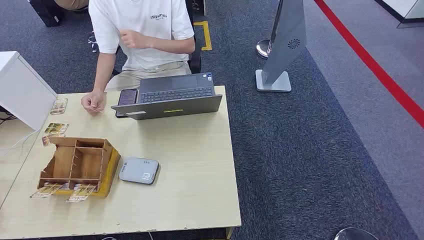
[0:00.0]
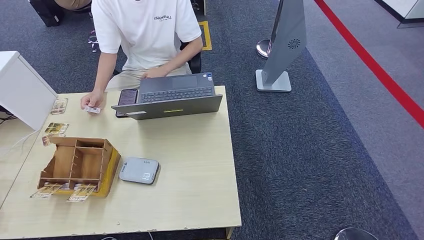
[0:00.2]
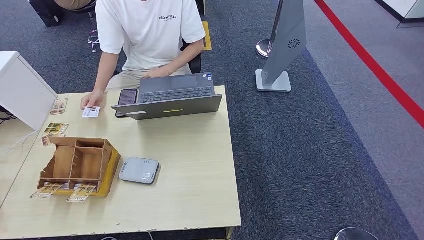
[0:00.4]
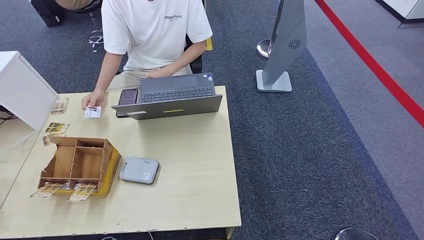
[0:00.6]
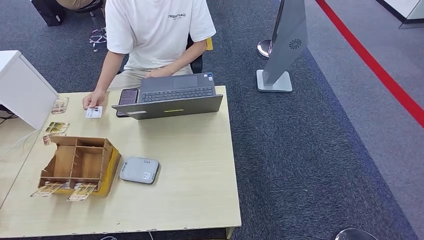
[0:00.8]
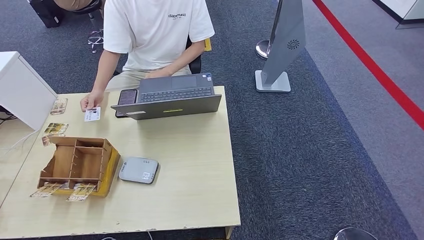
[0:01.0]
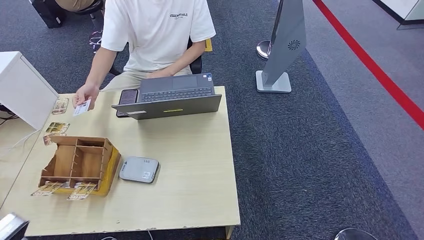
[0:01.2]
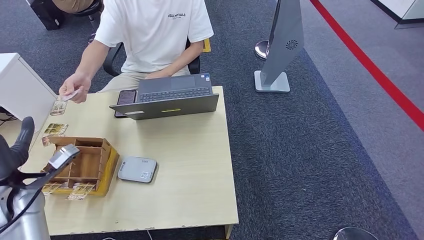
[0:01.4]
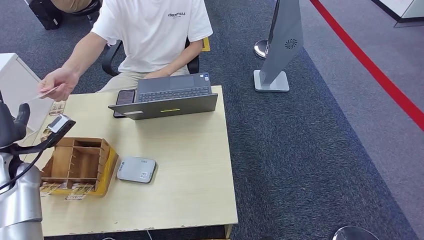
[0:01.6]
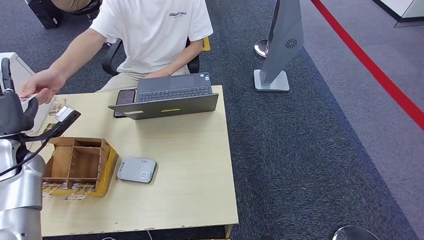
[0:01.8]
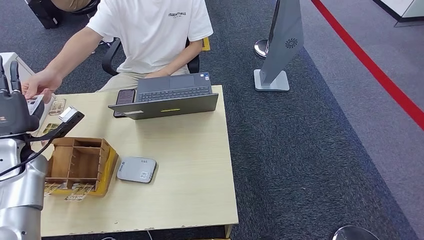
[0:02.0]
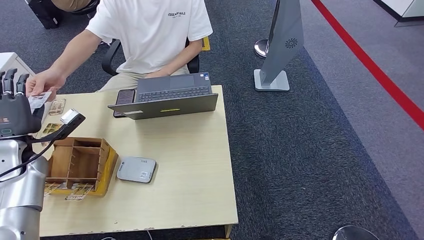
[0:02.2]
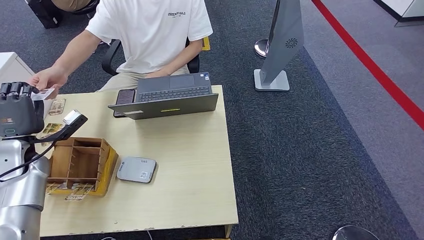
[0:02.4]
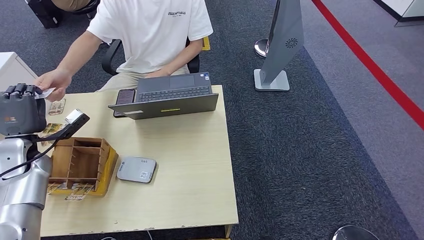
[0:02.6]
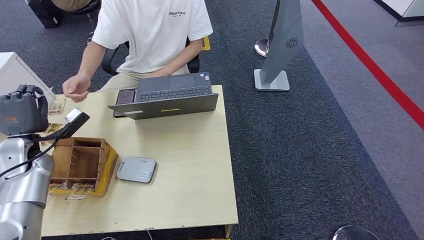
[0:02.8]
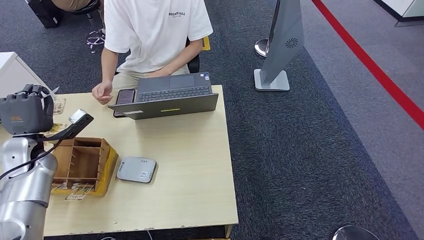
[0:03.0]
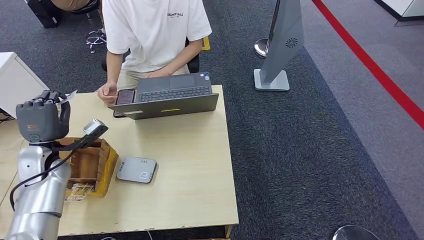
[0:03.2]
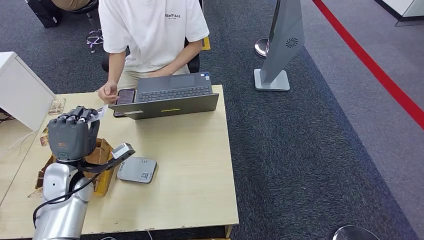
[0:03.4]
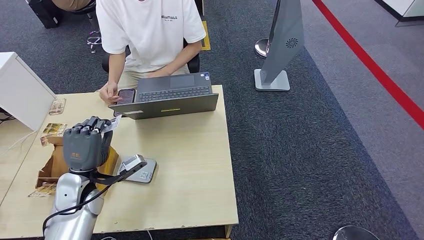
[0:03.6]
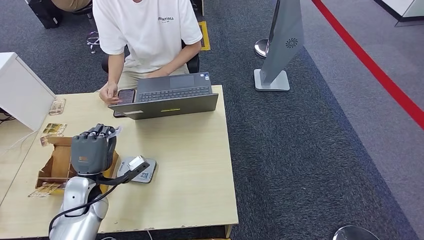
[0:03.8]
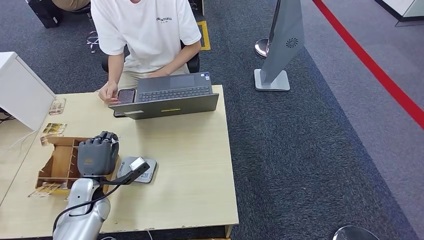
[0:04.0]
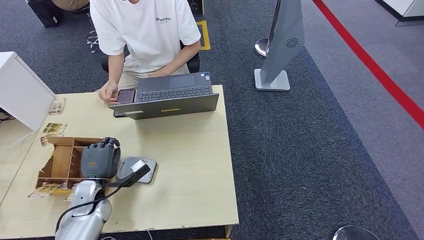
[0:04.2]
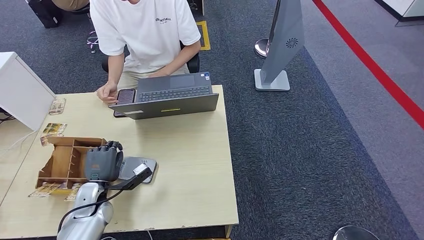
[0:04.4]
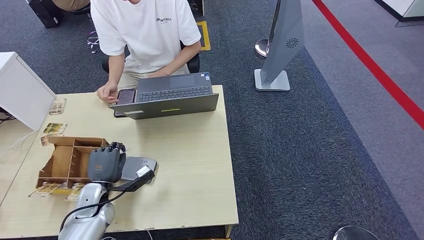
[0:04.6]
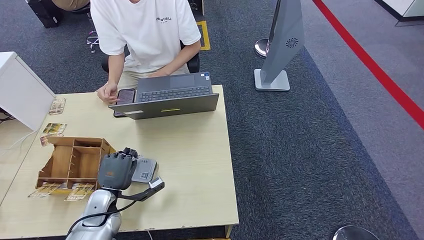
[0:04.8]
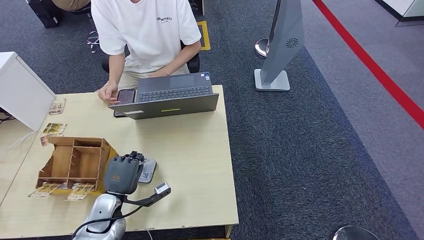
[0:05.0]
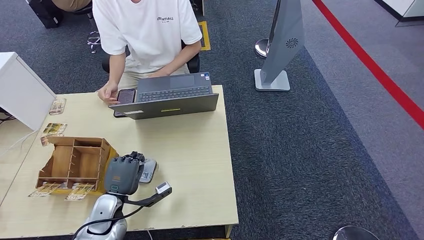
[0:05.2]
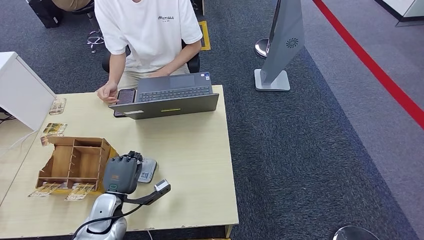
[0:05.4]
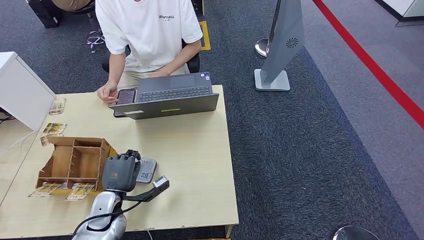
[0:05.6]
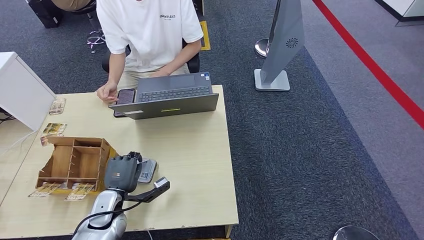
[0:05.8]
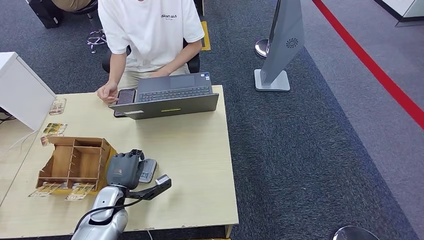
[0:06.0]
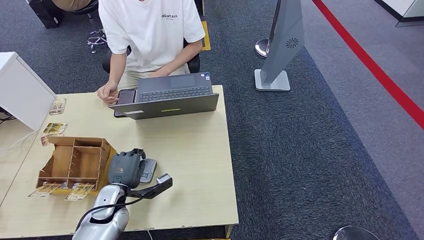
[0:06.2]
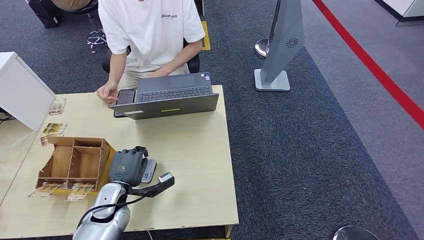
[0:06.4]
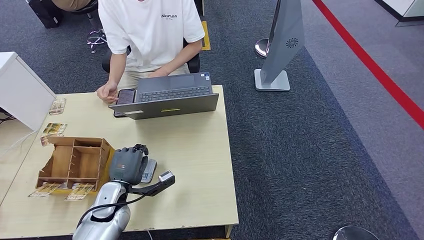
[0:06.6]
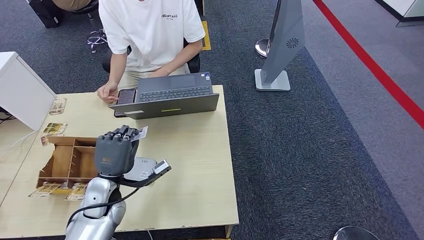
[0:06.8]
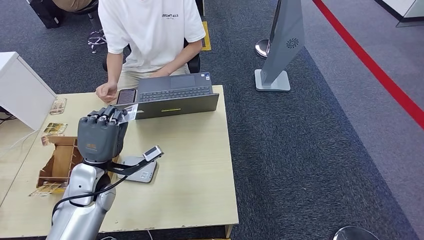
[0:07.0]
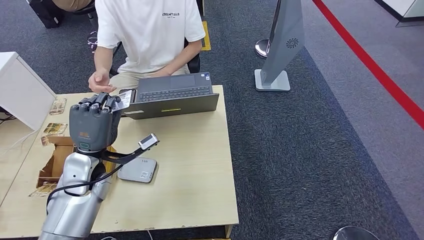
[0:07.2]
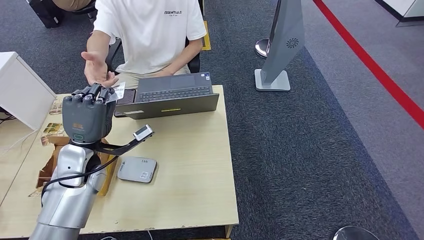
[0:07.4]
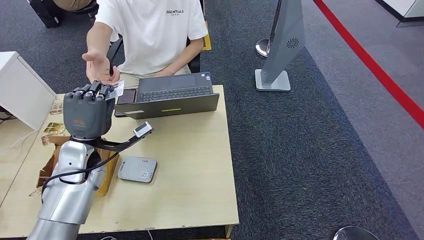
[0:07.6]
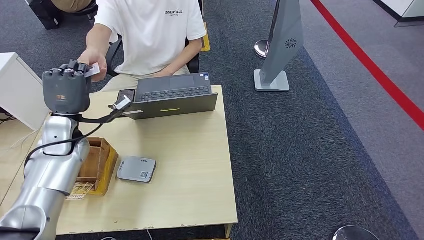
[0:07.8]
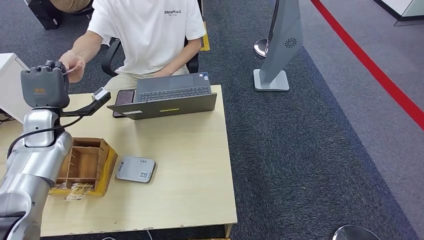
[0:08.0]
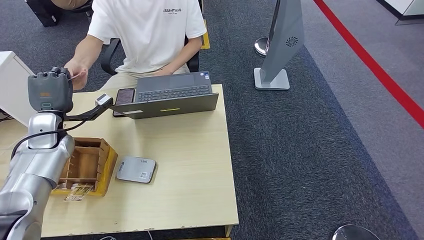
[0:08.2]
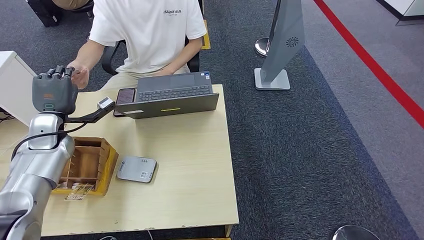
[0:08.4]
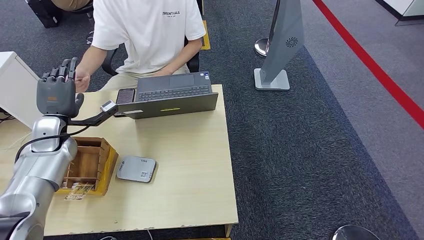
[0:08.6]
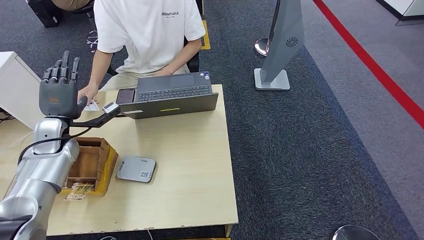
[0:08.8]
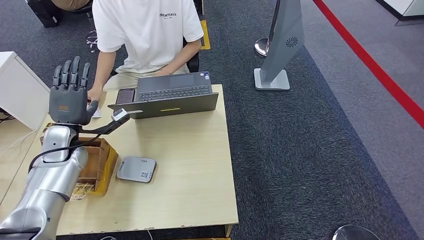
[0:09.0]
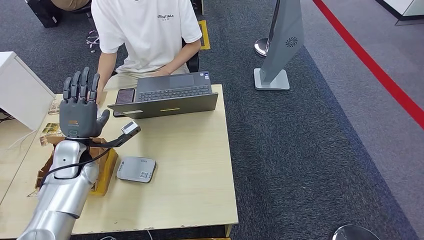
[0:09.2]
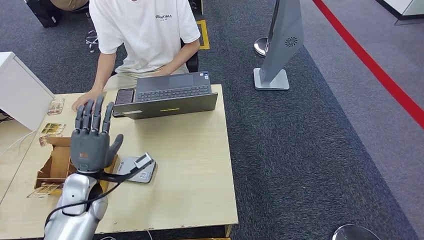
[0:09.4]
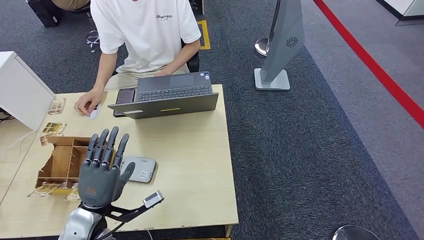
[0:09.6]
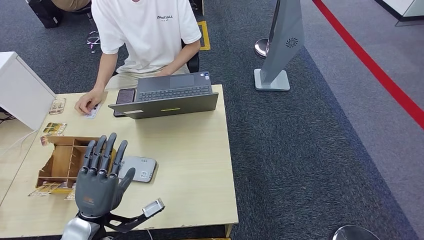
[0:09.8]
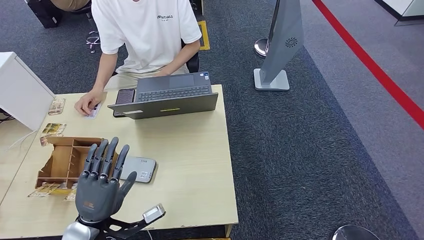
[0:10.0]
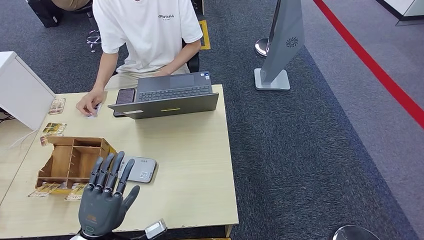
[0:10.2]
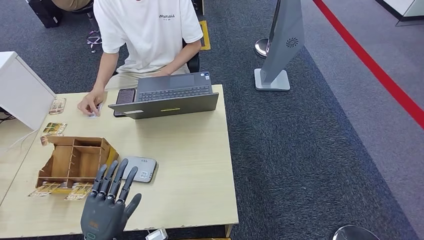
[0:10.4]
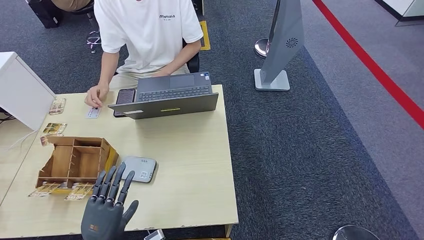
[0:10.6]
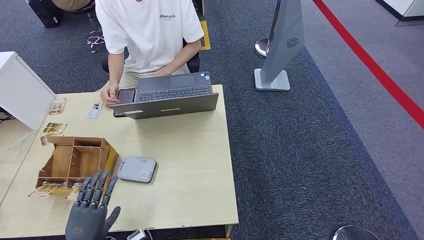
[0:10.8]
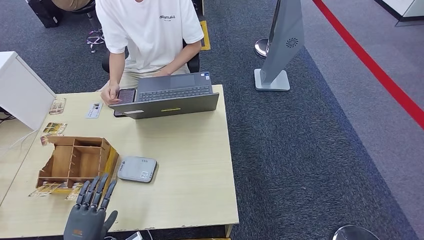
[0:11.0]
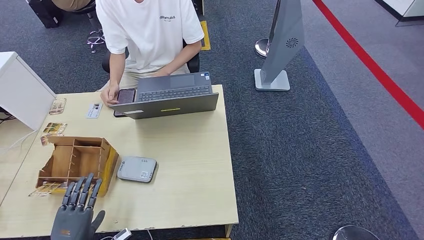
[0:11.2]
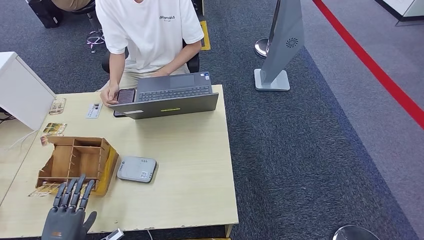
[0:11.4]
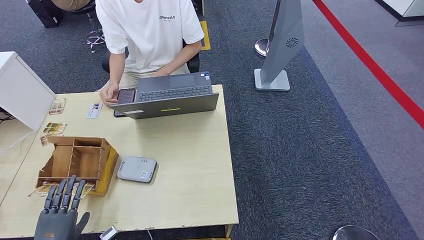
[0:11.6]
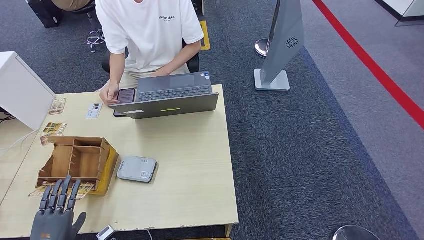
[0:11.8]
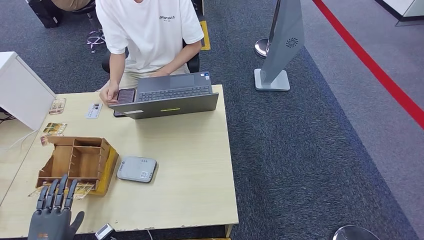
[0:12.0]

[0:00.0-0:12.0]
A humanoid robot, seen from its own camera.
Step, 0:00.0 to 0:03.0: Take the ID card from the person's hand.
Step, 0:03.2 to 0:06.6: Place the ID card on the card reader.
Step, 0:06.8 to 0:08.6: Hand the ID card to the person.
0:01.6 to 0:03.0: The left hand changes place by approximately 5 cm.
0:03.0 to 0:04.4: The left hand shifts roughly 20 cm downward, to the right and backward.
0:04.4 to 0:06.0: The left hand heads to the right, covering some 5 cm.
0:06.0 to 0:07.6: The left hand shifts some 20 cm upward and forward.
0:07.6 to 0:09.0: The left hand goes about 10 cm to the left and forward.
0:09.0 to 0:10.4: The left hand travels backward by about 25 cm.
0:10.4 to 0:12.0: The left hand shifts approximately 15 cm to the left and downward.

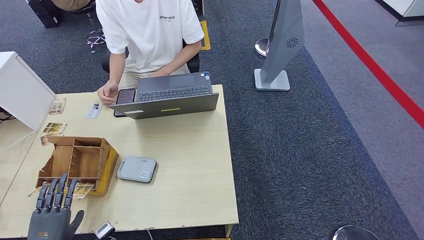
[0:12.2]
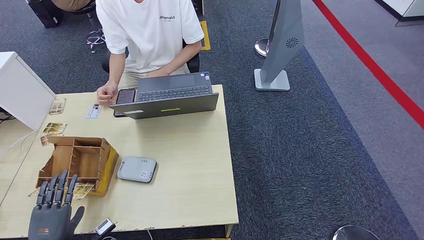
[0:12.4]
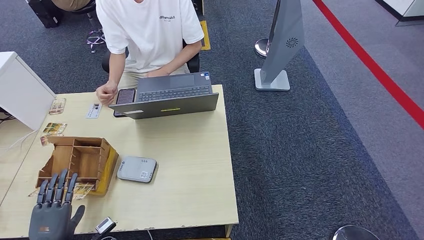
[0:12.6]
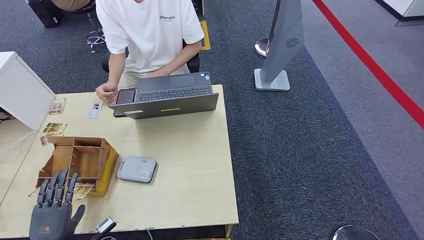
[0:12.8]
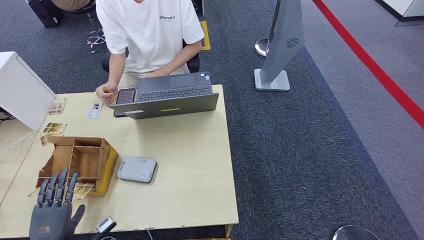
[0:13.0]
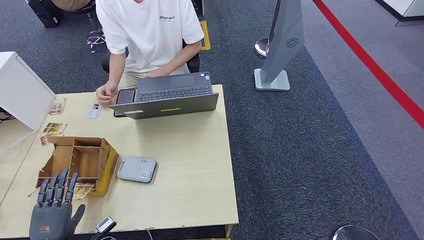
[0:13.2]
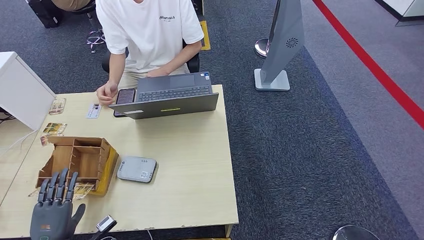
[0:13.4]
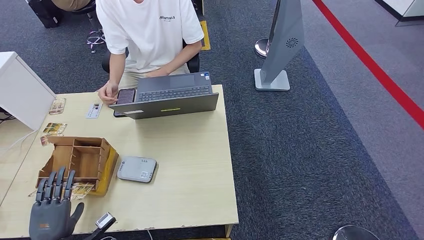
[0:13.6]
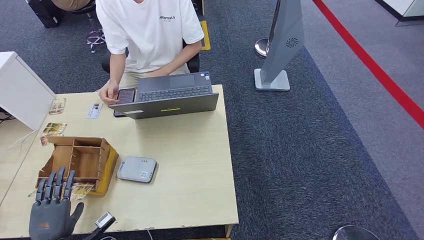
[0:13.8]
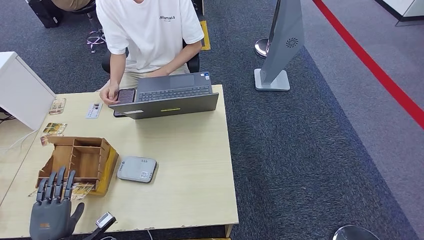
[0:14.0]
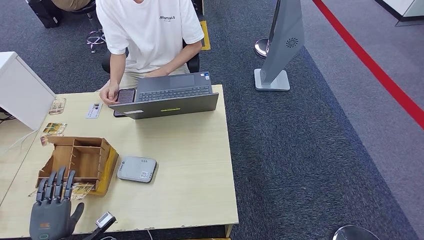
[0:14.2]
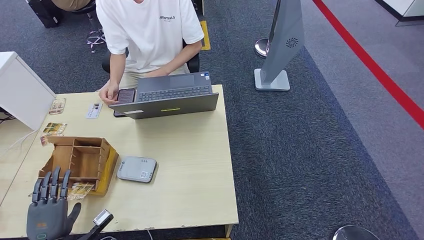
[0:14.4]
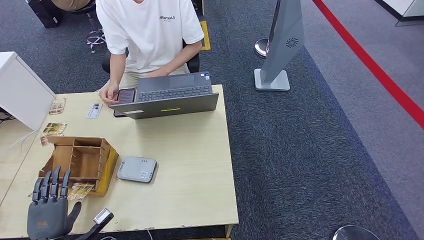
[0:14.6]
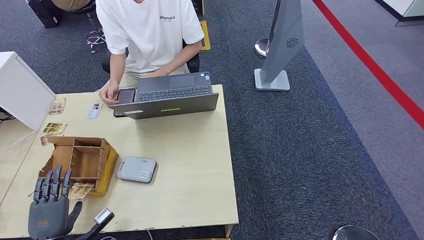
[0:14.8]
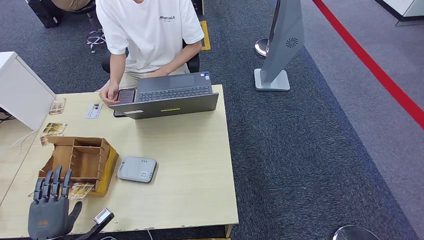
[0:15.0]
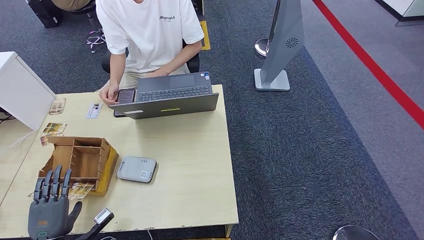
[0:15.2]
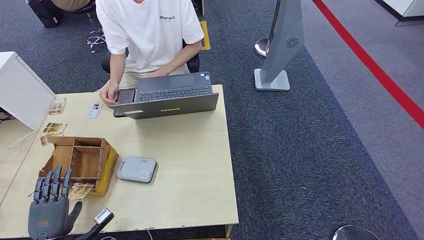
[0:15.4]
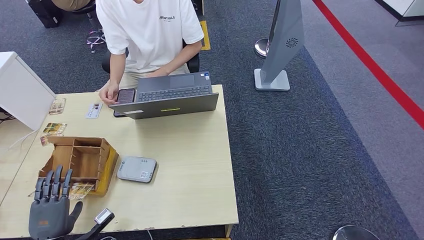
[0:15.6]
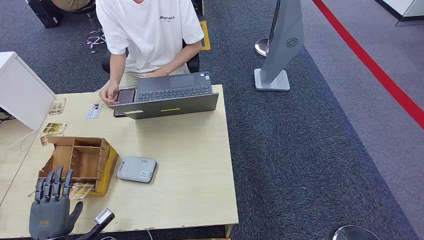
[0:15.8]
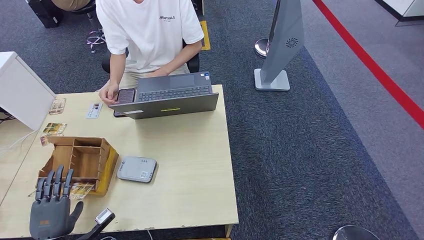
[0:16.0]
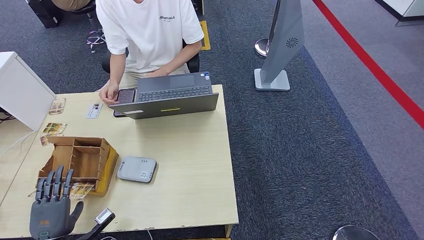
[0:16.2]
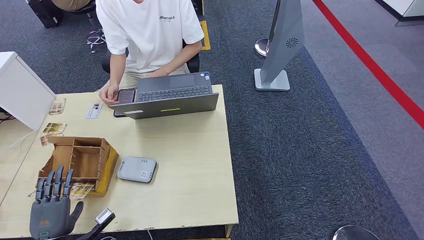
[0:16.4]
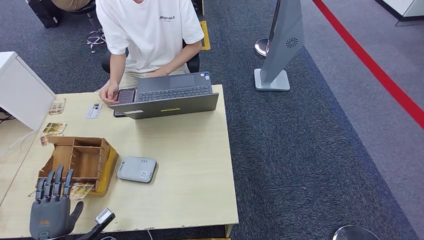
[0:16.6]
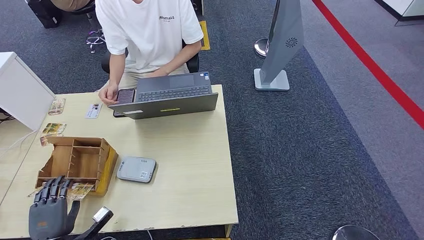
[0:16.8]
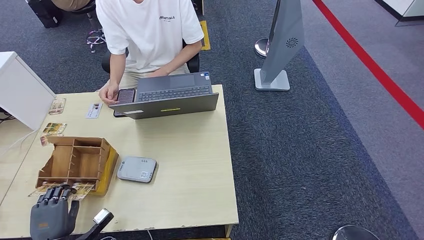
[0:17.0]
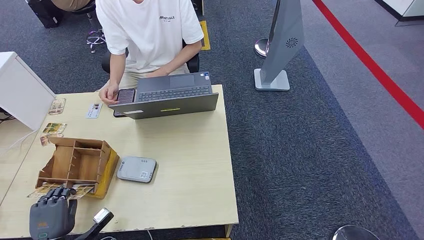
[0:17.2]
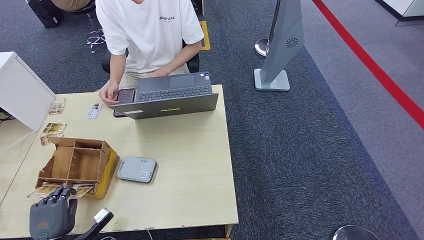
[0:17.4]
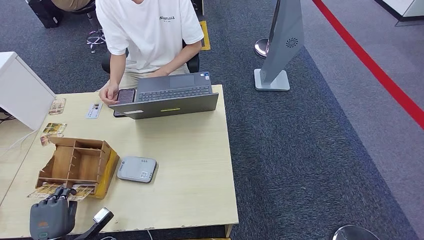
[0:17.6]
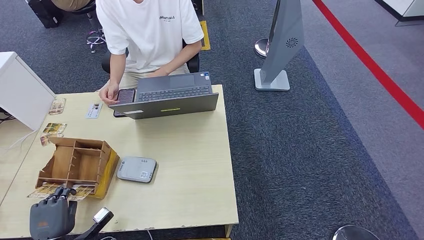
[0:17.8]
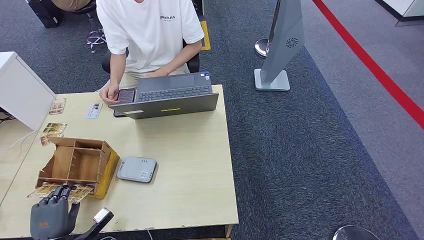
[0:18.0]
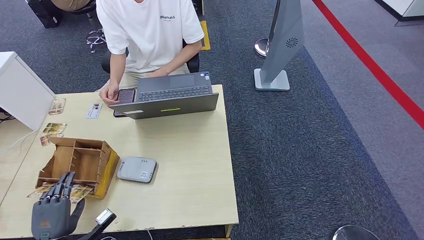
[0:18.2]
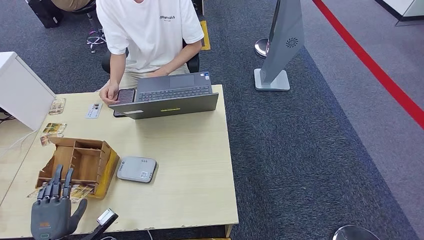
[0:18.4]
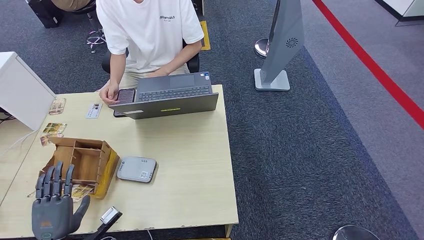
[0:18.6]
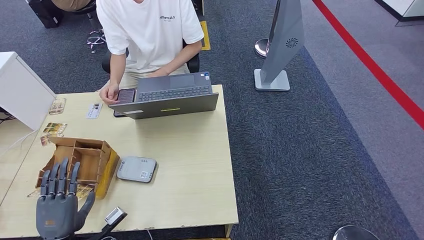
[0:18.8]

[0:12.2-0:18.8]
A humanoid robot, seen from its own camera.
0:12.2 to 0:13.8: The hands make only small movements.
0:13.8 to 0:15.4: The two hands keep their place.
0:15.4 to 0:17.2: There are only small adjustments of the hands.
0:17.2 to 0:18.8: The left hand shifts about 5 cm to the right.
